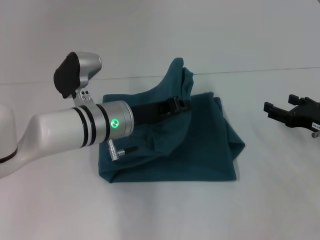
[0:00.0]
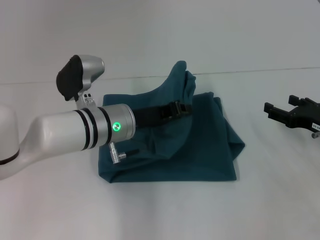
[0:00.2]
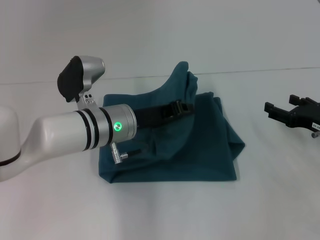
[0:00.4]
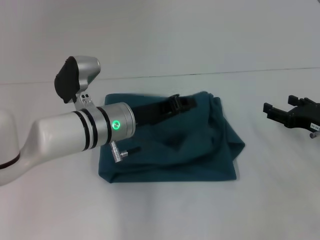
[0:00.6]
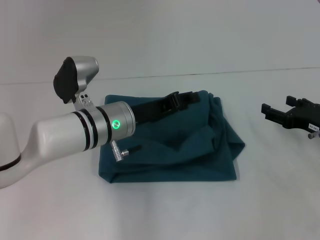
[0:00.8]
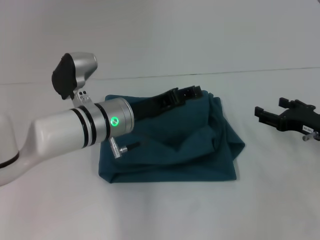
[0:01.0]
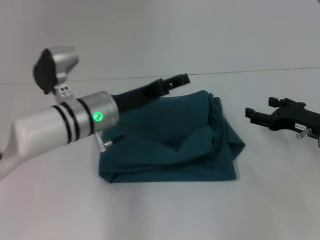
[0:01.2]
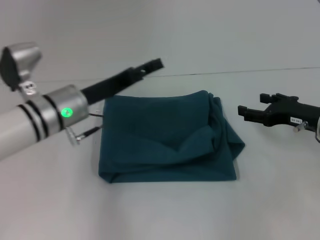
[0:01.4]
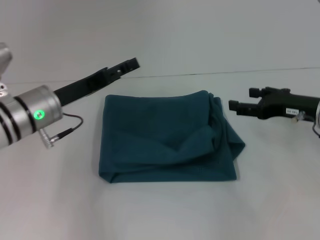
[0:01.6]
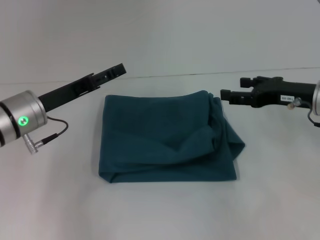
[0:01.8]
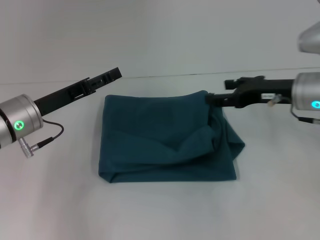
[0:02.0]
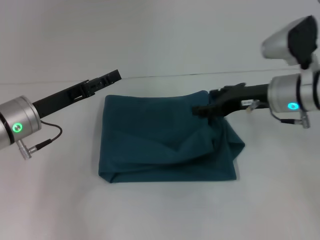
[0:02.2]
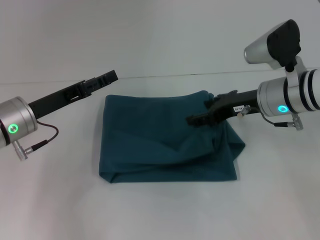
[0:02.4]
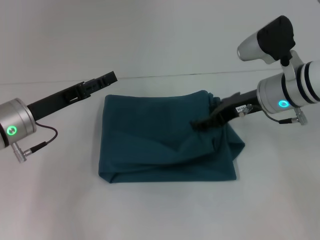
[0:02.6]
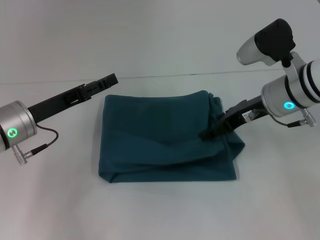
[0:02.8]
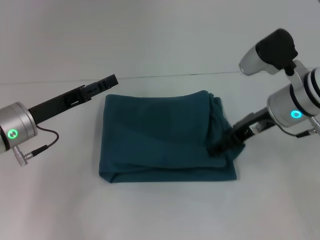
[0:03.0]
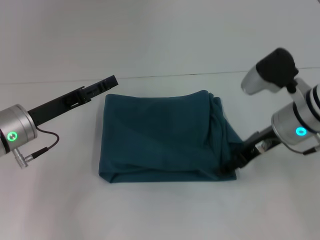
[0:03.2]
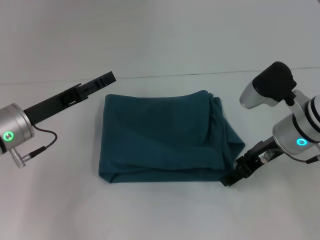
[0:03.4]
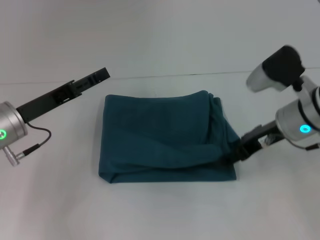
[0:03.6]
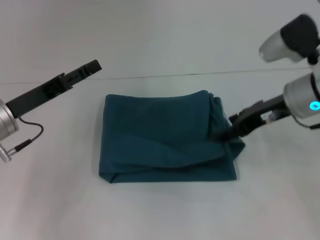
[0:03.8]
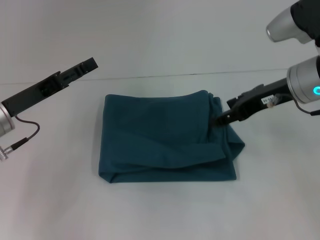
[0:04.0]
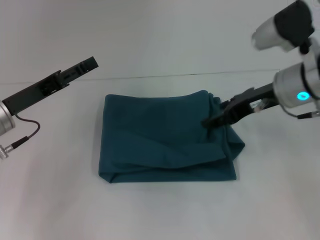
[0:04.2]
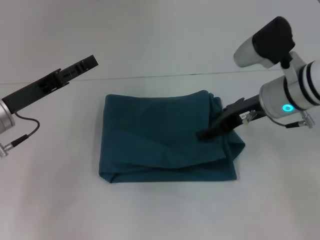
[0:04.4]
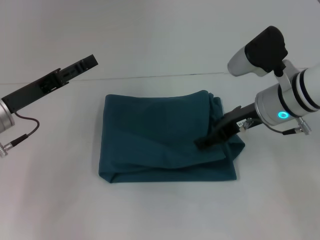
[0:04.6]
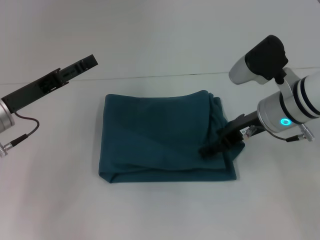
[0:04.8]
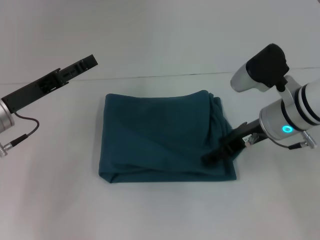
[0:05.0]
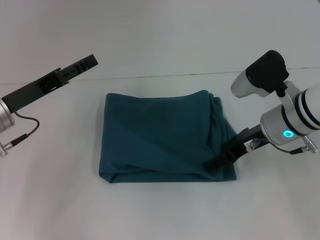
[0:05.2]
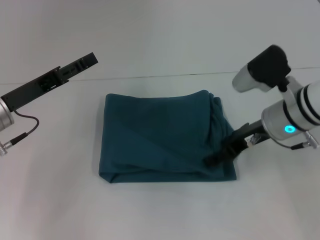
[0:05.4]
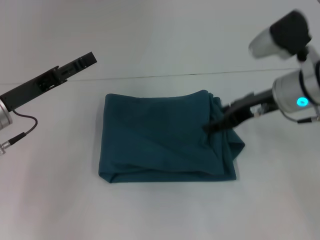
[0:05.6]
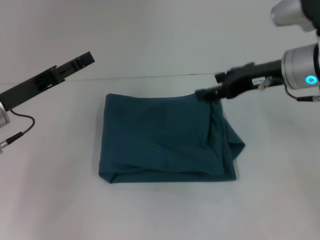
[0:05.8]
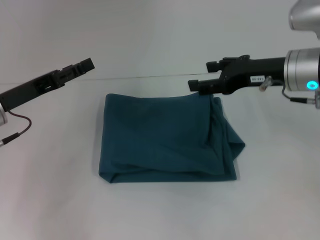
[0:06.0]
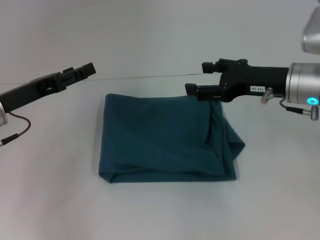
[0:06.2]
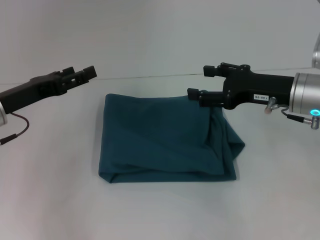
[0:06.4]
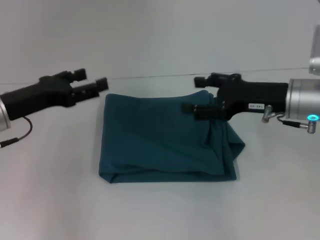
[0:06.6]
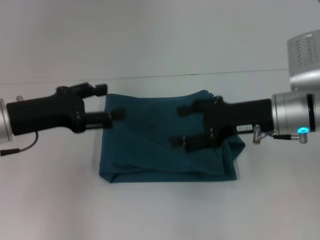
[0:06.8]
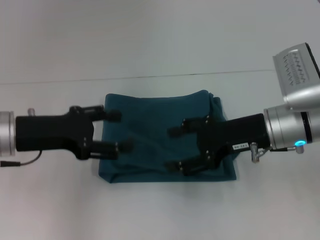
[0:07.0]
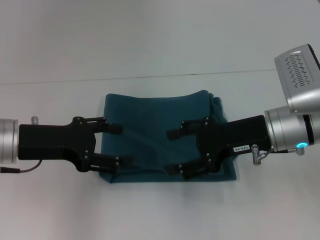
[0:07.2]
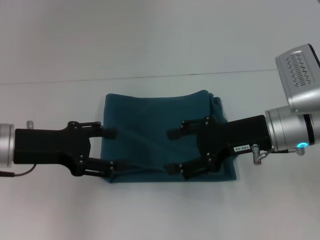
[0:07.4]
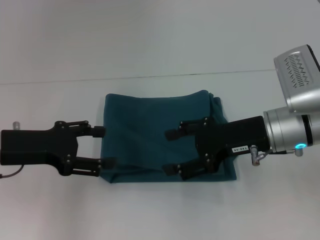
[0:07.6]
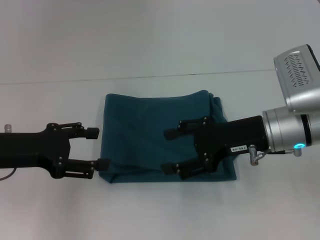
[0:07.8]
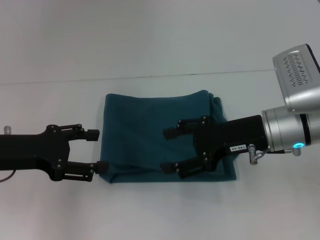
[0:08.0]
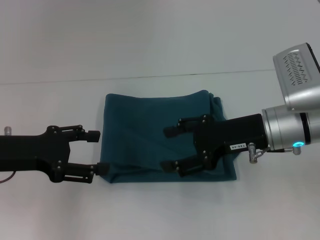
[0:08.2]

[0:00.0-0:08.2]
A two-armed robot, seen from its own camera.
0.0 to 1.6 s: The right gripper is displaced upward by approximately 5 cm. The left gripper moves to the left, roughly 10 cm, and opens up.
1.6 to 3.2 s: The right gripper moves to the left, approximately 5 cm.
3.2 to 5.0 s: The right gripper goes upward and returns, roughly 5 cm each way.
5.0 to 6.6 s: The right gripper reaches some 5 cm upward, then returns.

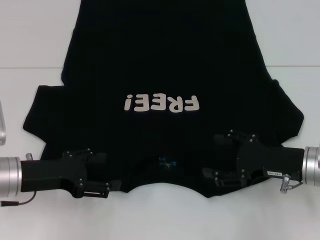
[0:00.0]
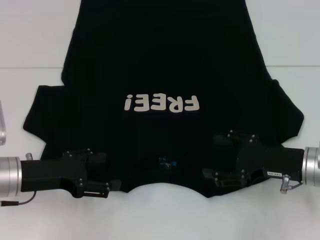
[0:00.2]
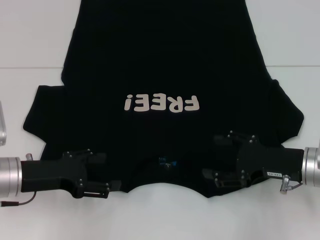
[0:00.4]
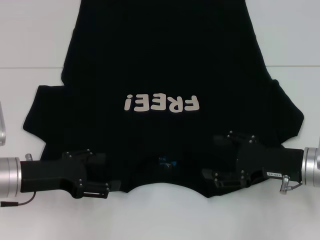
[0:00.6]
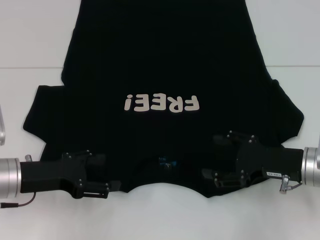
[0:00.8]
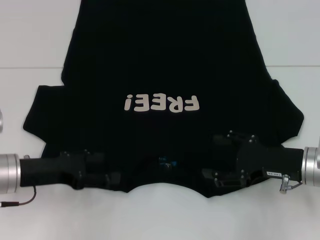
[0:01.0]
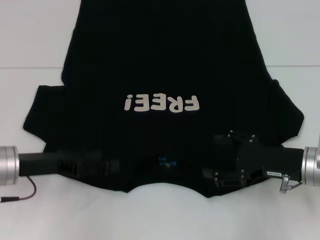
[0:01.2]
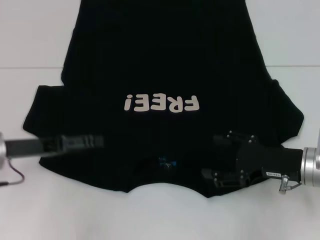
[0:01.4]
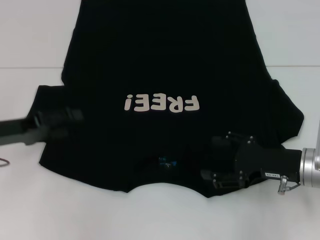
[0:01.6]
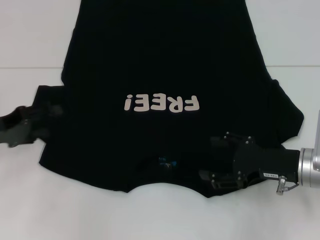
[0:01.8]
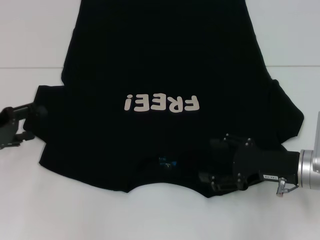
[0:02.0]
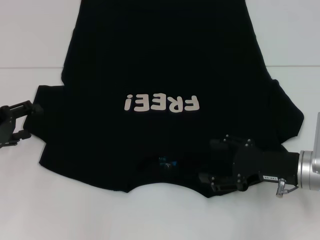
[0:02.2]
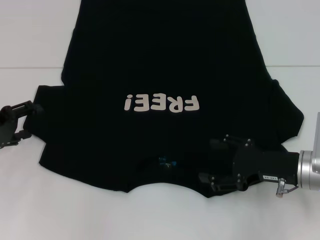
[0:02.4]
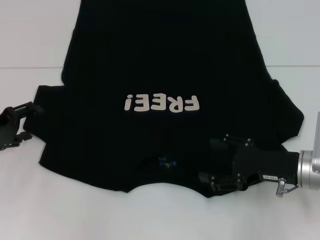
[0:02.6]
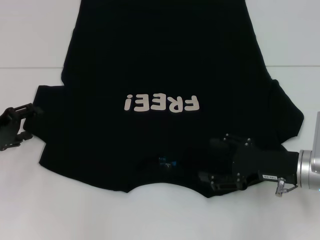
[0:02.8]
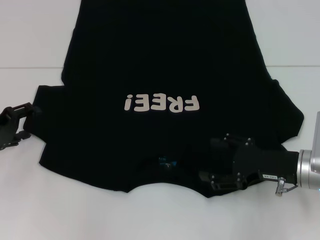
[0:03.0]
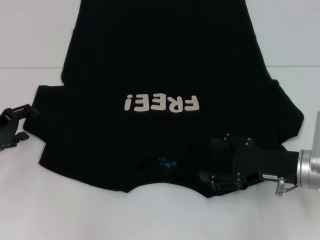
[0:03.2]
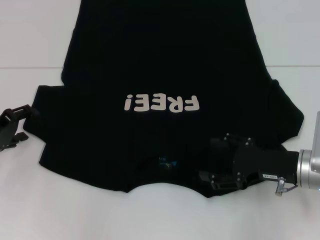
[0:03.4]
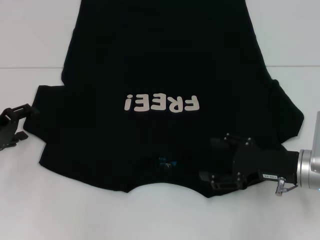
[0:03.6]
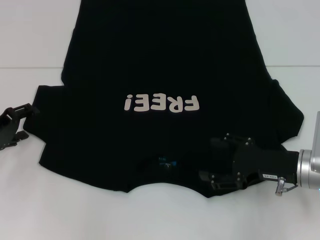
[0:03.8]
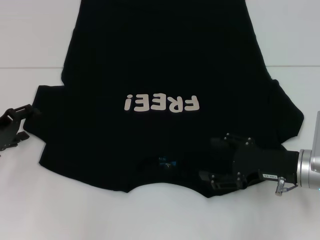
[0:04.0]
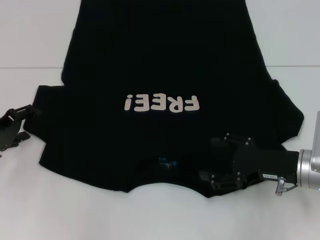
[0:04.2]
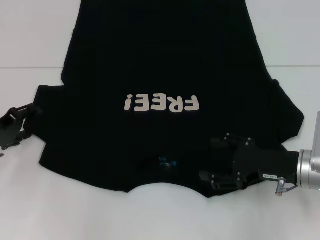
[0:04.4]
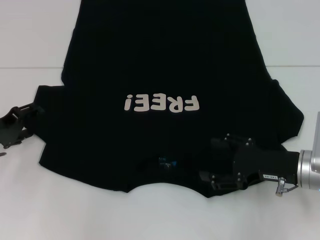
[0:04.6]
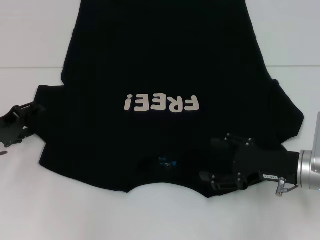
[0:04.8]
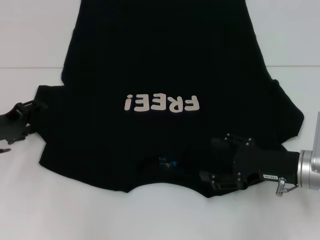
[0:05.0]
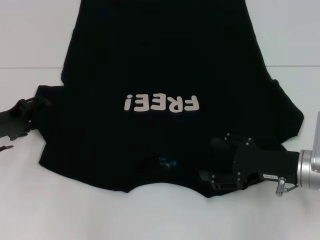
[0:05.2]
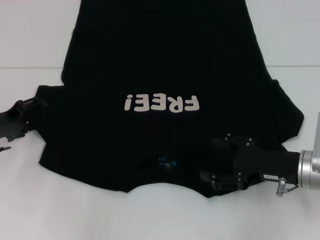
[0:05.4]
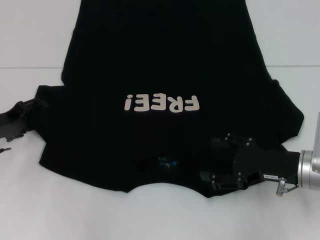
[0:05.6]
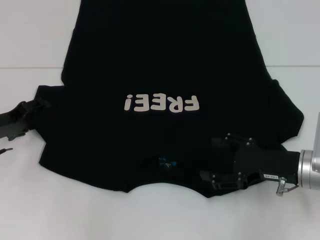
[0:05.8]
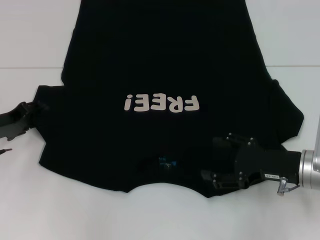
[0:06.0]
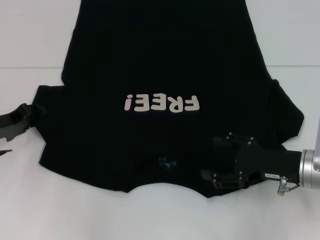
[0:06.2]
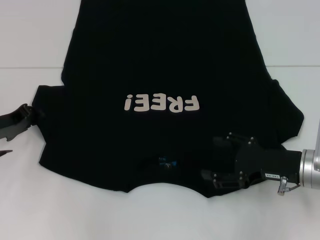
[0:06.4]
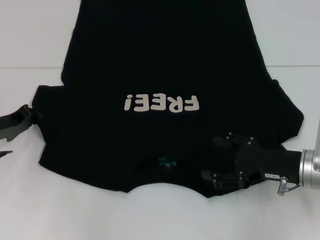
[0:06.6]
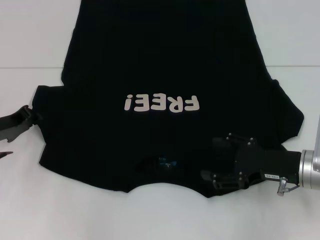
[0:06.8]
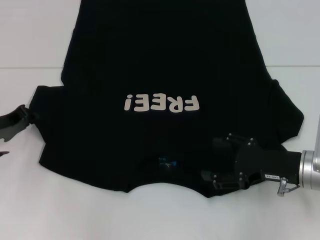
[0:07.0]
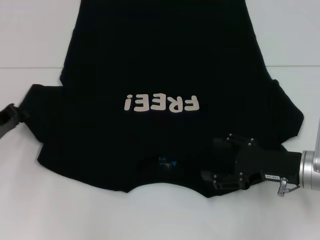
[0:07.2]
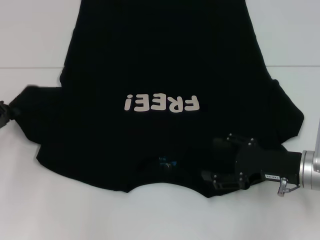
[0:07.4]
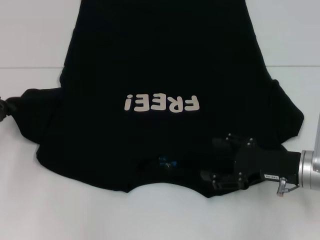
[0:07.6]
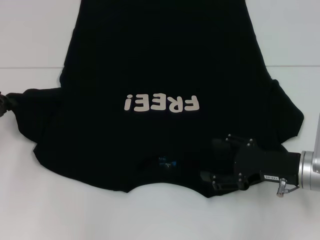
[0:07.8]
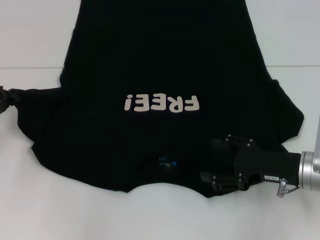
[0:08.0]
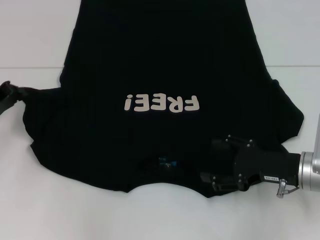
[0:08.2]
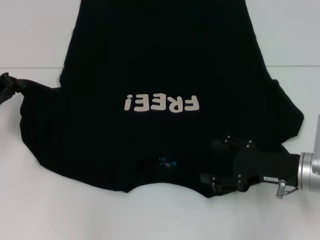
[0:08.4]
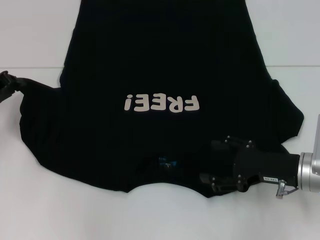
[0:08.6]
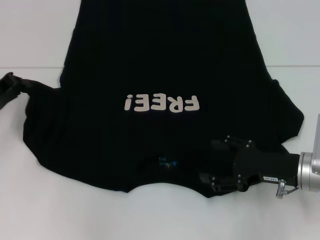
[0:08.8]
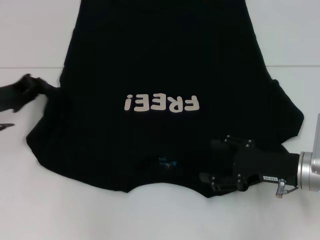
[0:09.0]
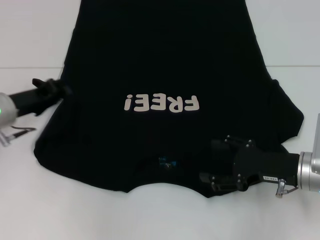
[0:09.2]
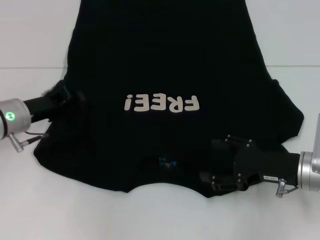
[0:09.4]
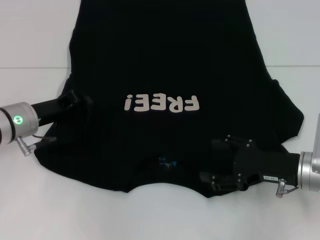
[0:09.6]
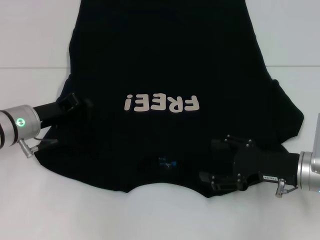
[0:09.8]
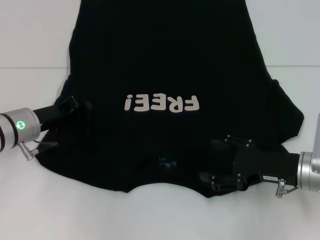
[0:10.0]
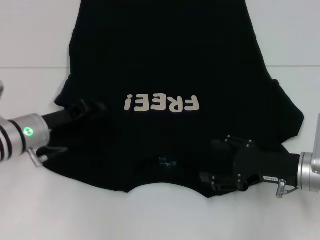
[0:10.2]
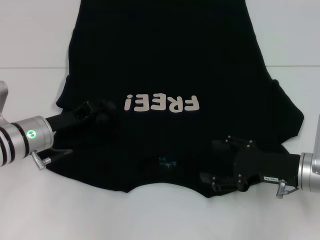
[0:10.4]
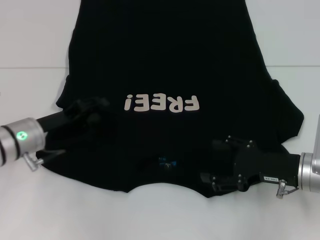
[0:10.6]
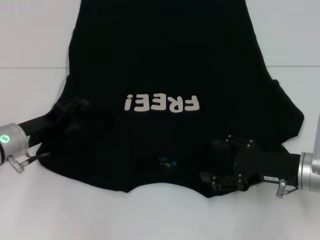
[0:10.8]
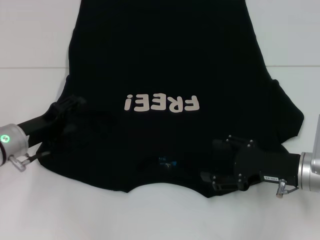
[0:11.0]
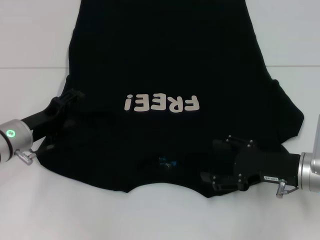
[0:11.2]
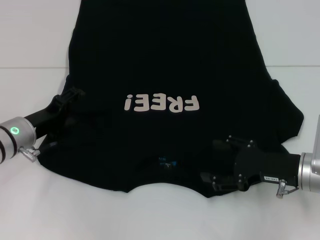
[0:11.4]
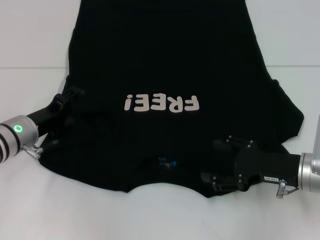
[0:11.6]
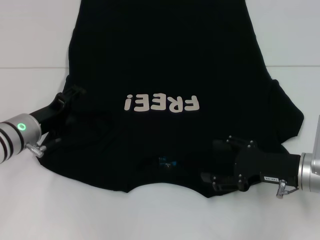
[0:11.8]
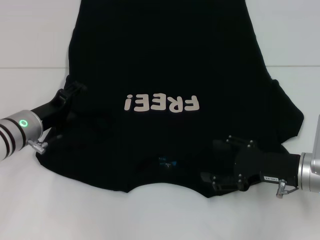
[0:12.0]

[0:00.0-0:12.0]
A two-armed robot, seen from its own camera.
0.0 to 1.6 s: The left gripper travels to the left by approximately 5 cm.
1.6 to 3.0 s: The left gripper shifts by about 5 cm.
4.4 to 6.0 s: The grippers move only a little.
6.0 to 7.6 s: The left gripper closes.
7.6 to 9.0 s: The left gripper moves approximately 5 cm.
9.0 to 10.4 s: The left gripper moves to the right, some 10 cm.
10.4 to 12.0 s: The left gripper opens.

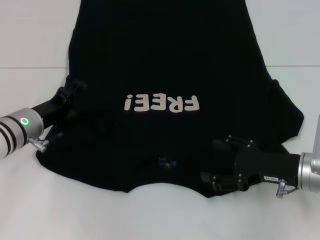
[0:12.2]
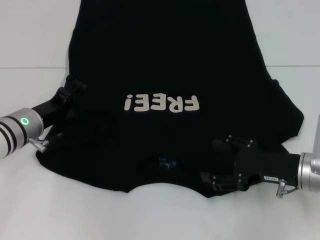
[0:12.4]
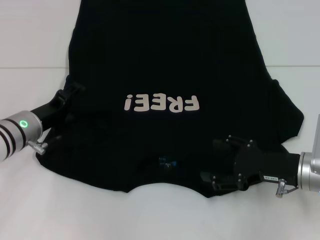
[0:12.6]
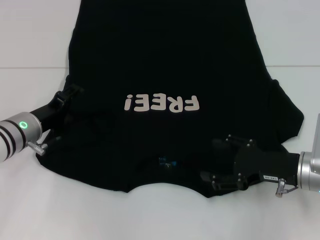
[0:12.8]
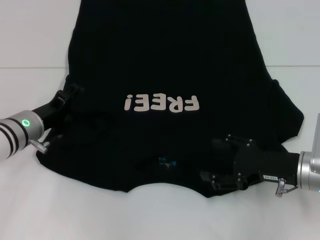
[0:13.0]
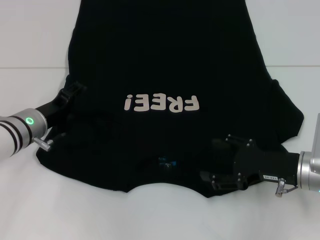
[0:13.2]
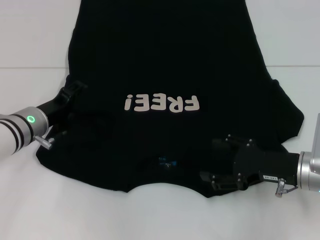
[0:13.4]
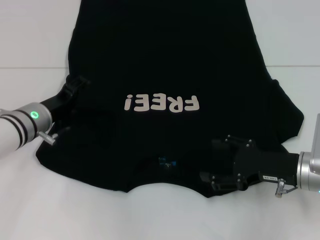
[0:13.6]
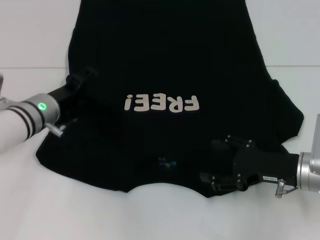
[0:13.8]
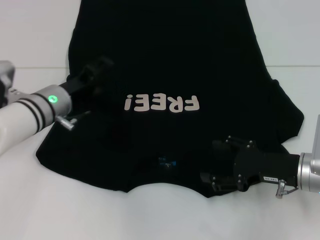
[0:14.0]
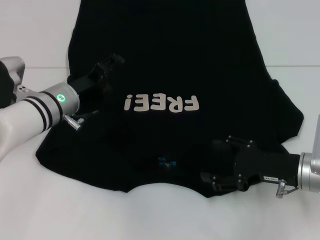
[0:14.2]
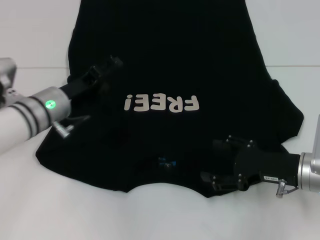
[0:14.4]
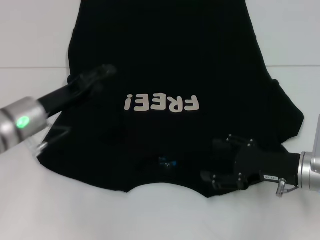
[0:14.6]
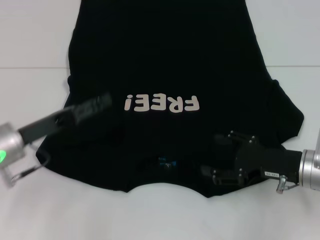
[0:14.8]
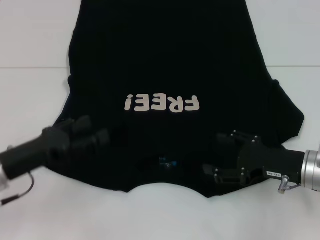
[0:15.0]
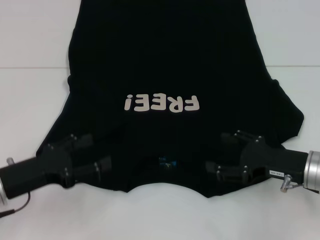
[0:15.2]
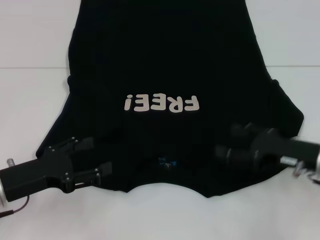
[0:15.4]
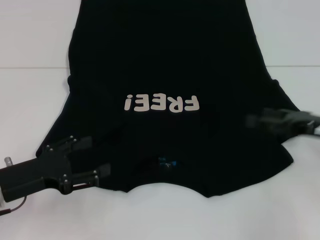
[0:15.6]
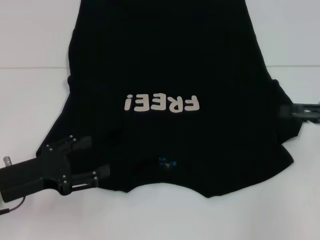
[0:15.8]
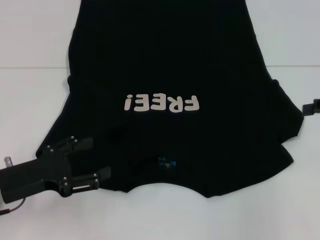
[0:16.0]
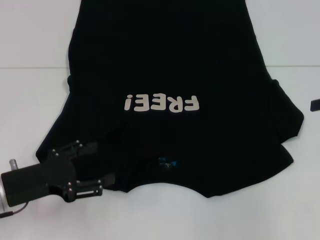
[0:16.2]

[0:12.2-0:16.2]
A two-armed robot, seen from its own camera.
Step, 12.2 to 14.4 s: Fold the bottom left sleeve with your left hand.
12.2 to 13.6 s: The grippers make only small movements.
13.6 to 14.8 s: The left gripper is displaced backward by roughly 5 cm.
14.8 to 16.2 s: The left gripper travels backward by about 5 cm. Meanwhile the right gripper goes some 20 cm upward, to the right and forward.
